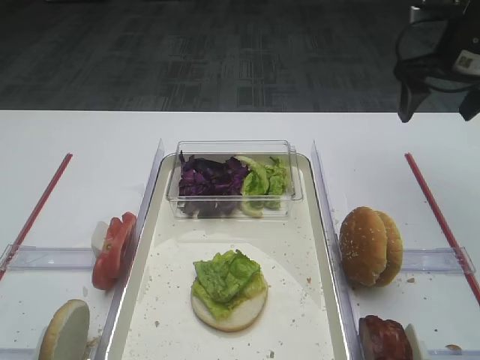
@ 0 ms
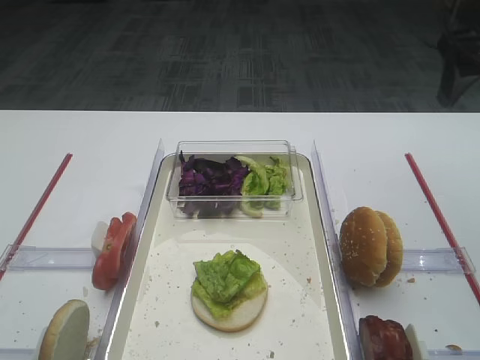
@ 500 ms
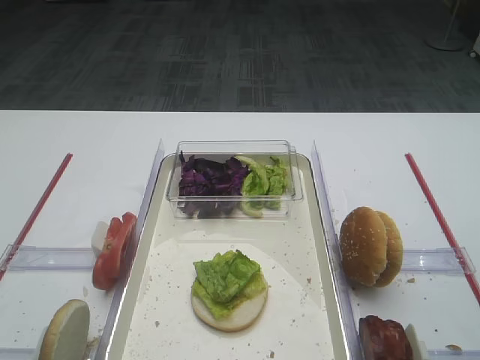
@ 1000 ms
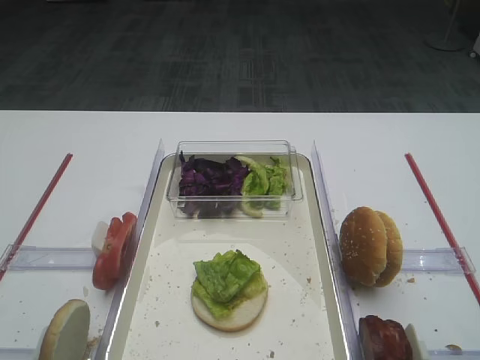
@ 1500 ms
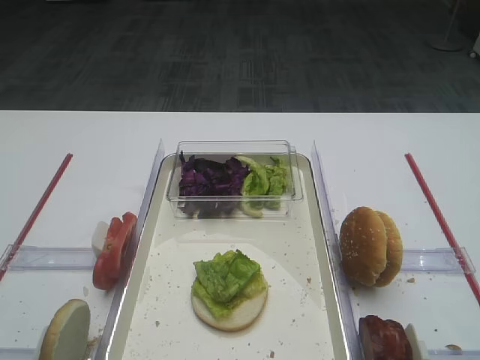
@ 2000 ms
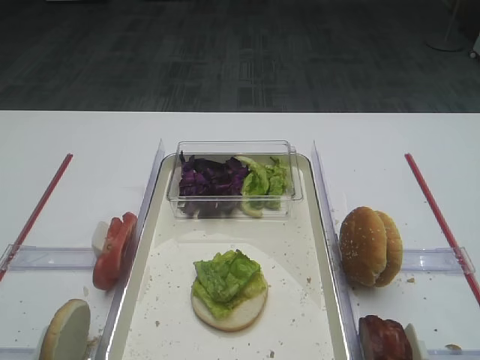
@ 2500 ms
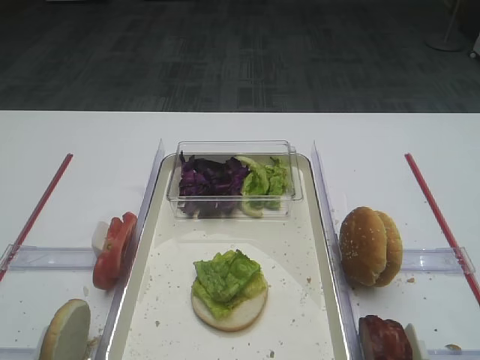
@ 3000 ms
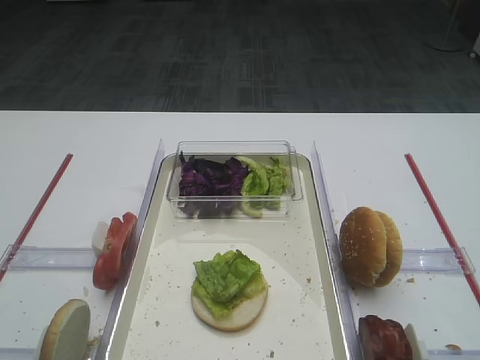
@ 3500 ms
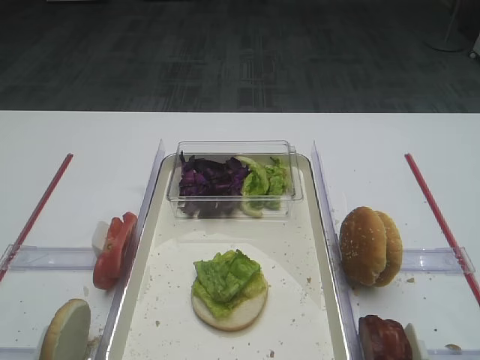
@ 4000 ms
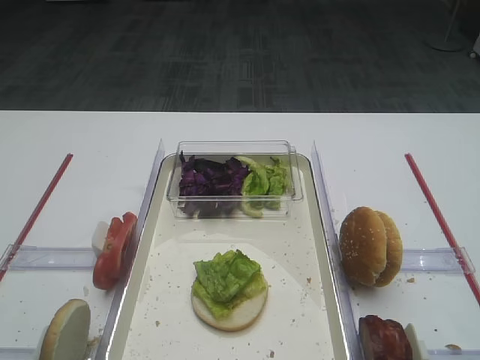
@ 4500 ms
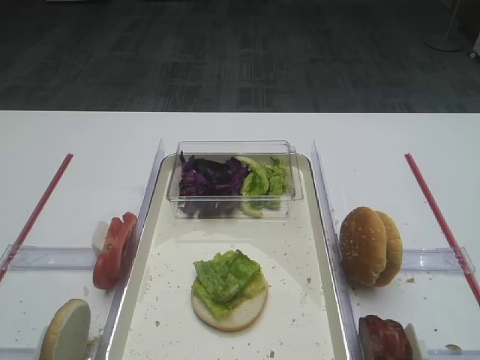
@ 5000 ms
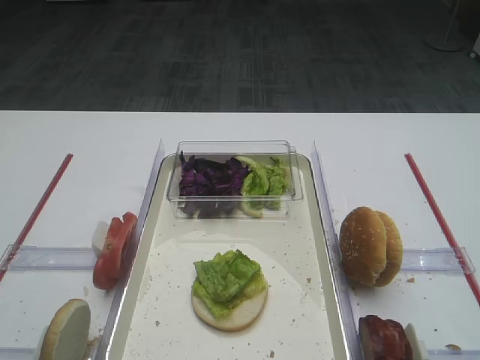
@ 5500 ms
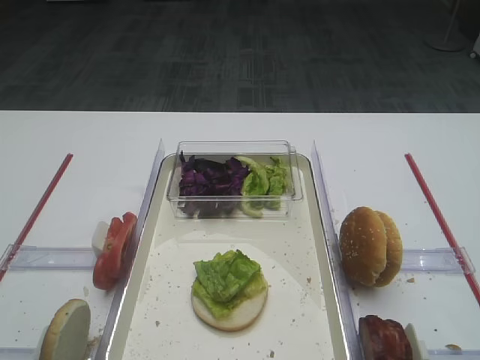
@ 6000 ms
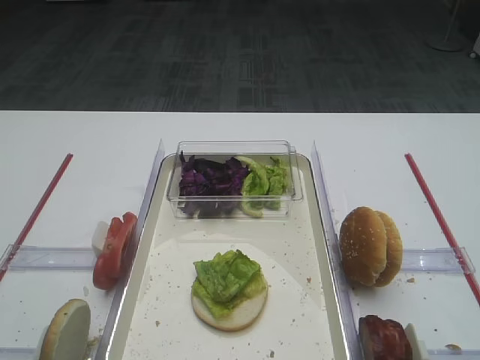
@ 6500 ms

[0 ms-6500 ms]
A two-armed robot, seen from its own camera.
0 ms to 2000 ms: The right gripper shifts approximately 40 cm backward.
4500 ms to 6500 ms: Neither gripper changes place.

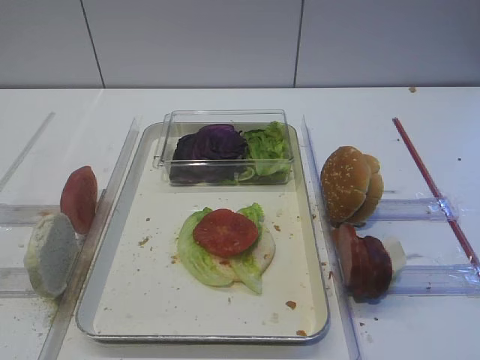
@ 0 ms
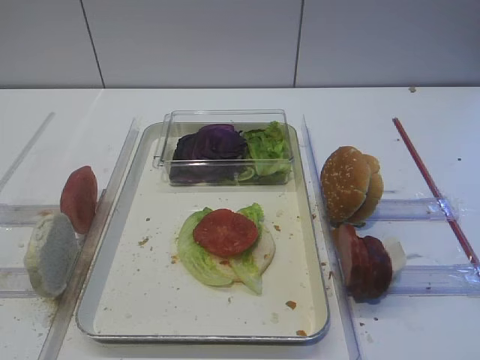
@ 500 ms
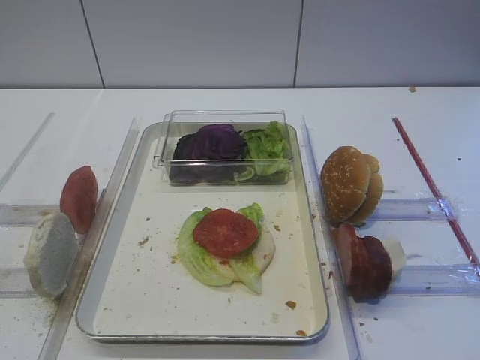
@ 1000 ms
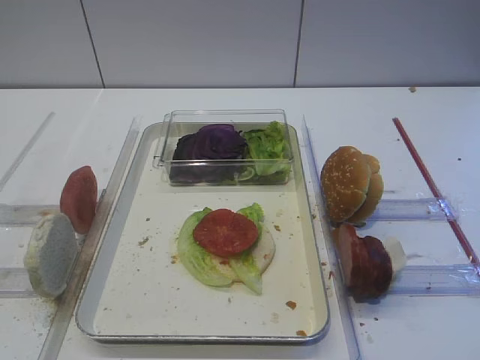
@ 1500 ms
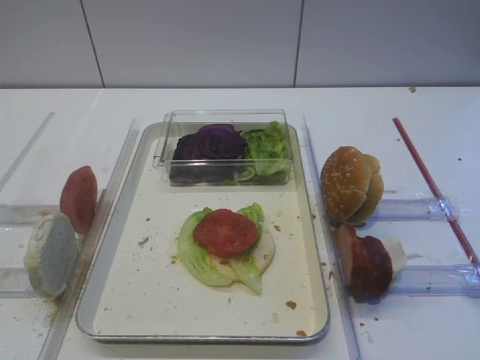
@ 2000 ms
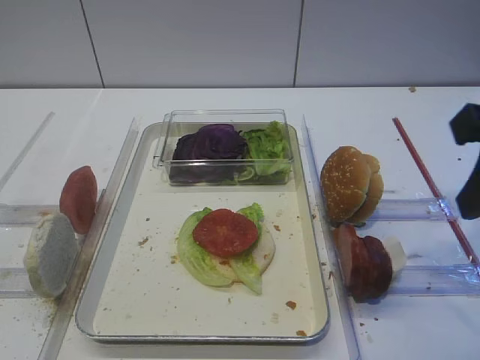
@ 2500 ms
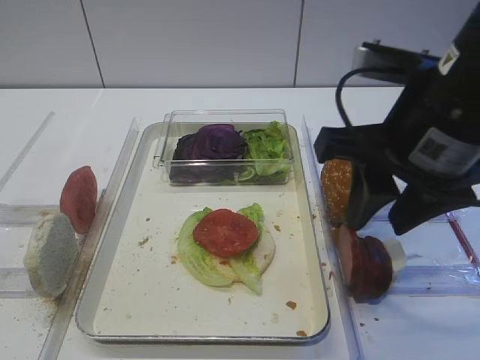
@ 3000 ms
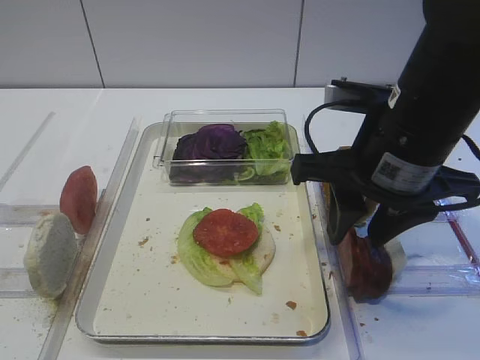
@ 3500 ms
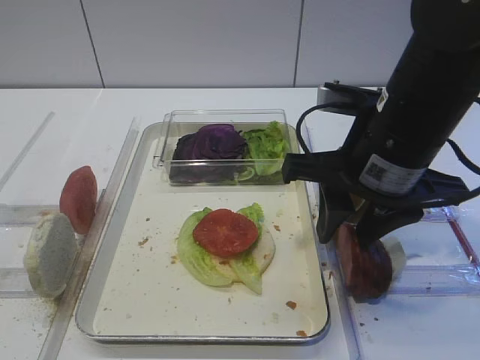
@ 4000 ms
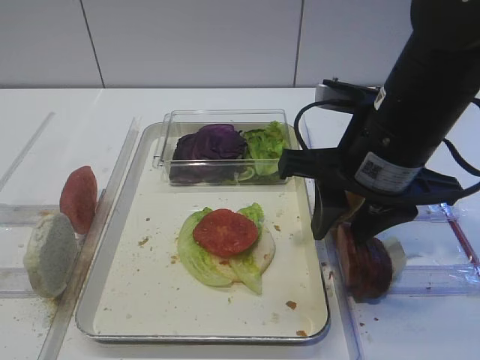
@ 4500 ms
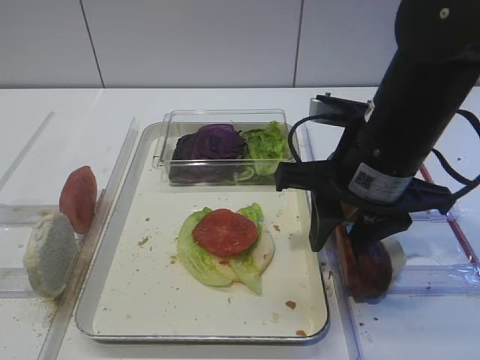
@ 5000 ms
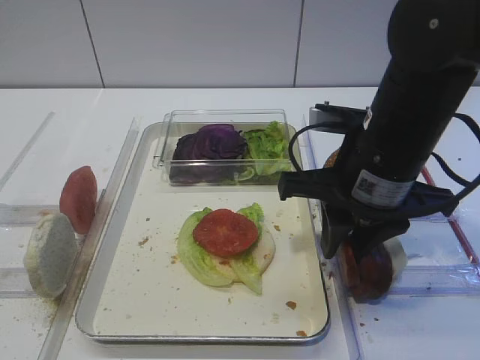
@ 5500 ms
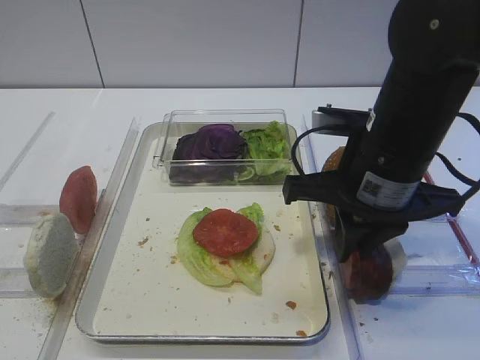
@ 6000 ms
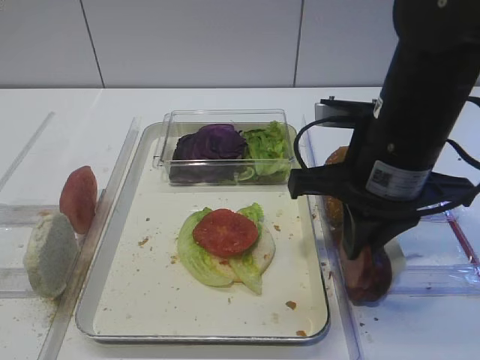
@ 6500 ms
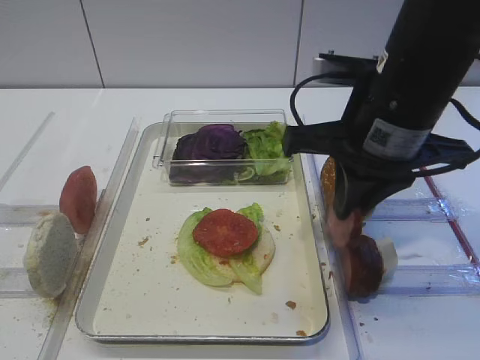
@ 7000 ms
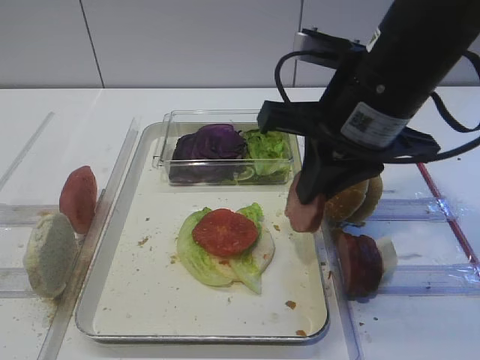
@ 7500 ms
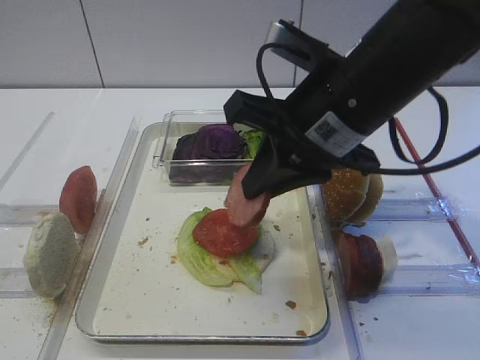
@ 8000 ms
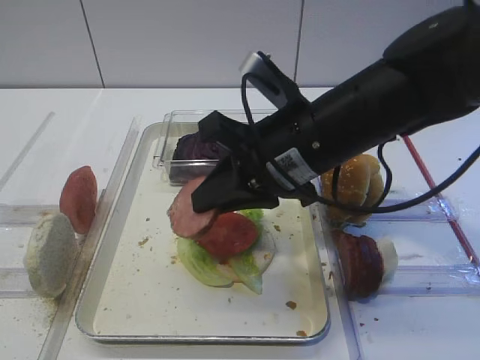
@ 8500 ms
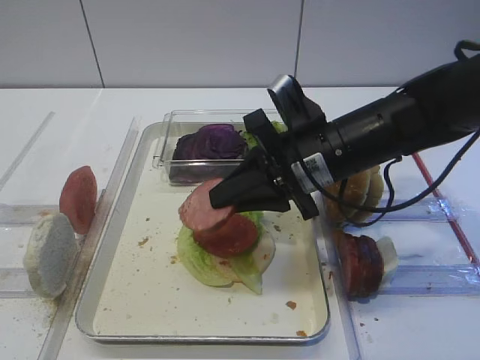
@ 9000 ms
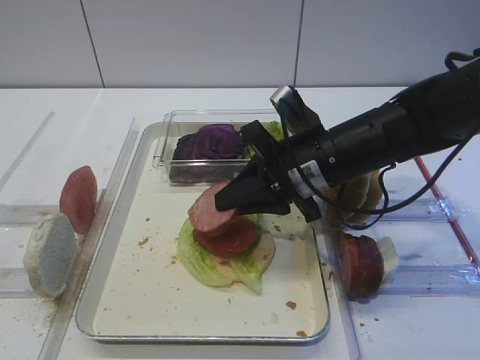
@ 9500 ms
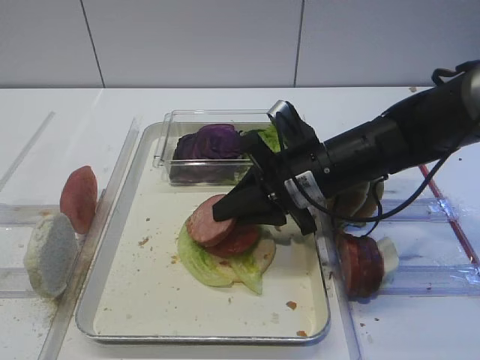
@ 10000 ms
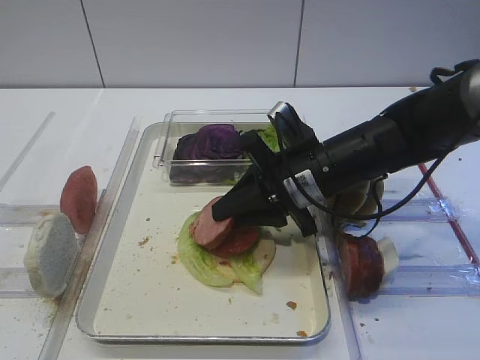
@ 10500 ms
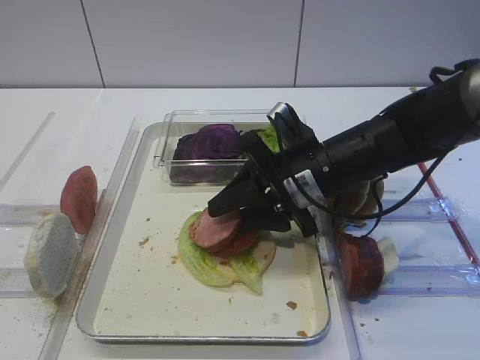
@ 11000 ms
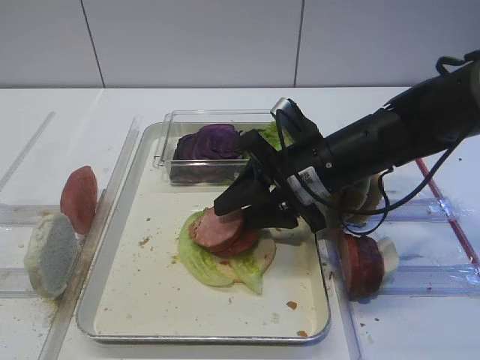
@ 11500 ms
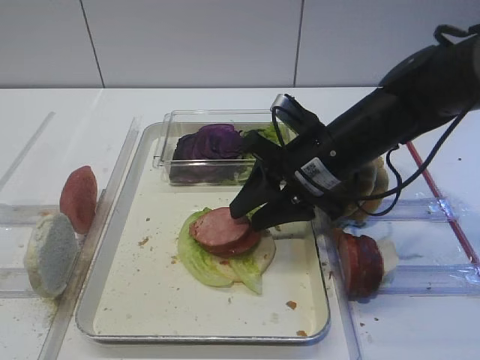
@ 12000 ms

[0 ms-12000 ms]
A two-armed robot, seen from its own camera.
Step, 0 ms to 6500 ms: Pick up the cutlet with the right gripper.
2000 ms to 4000 ms: The right gripper is displaced to the left, forward and downward by some 20 cm.
4000 ms to 6000 ms: The right gripper closes its fingers.
6000 ms to 8000 ms: The right gripper changes place by some 5 cm.
8000 ms to 10000 ms: The right gripper heads downward and forward, covering approximately 15 cm.
10000 ms to 12000 ms: The right gripper opens.

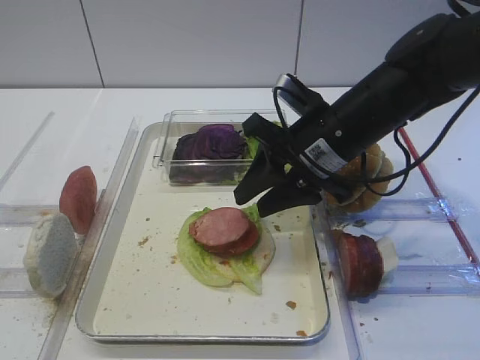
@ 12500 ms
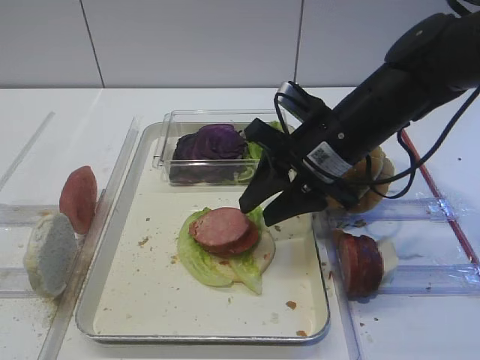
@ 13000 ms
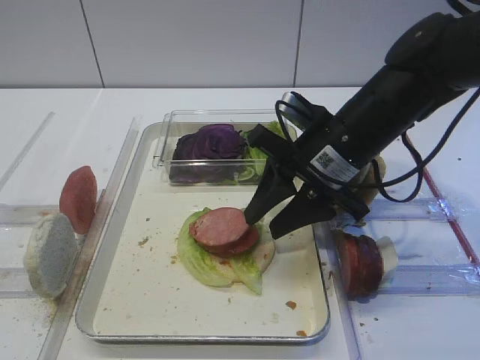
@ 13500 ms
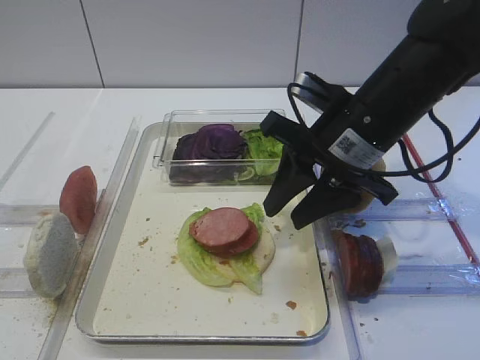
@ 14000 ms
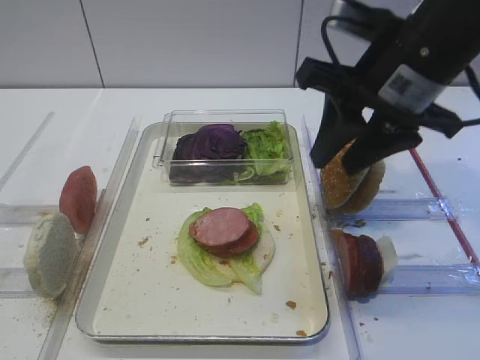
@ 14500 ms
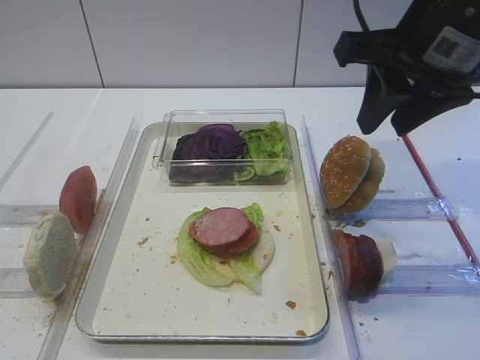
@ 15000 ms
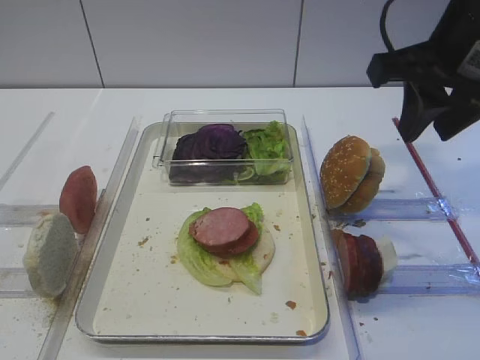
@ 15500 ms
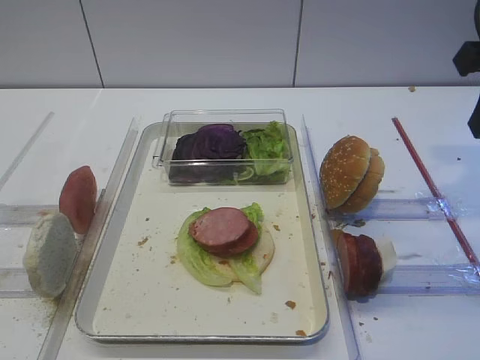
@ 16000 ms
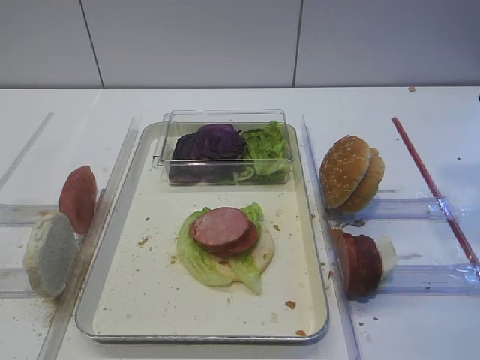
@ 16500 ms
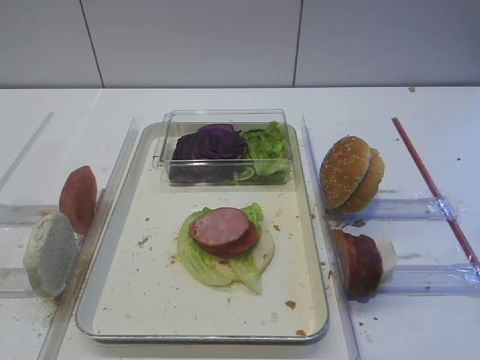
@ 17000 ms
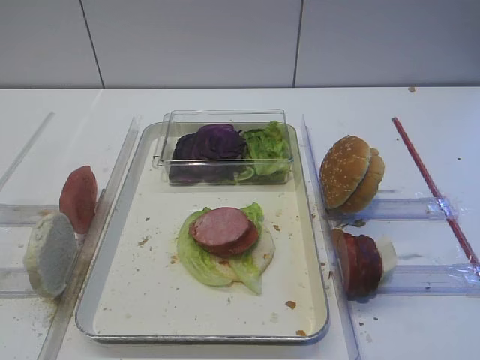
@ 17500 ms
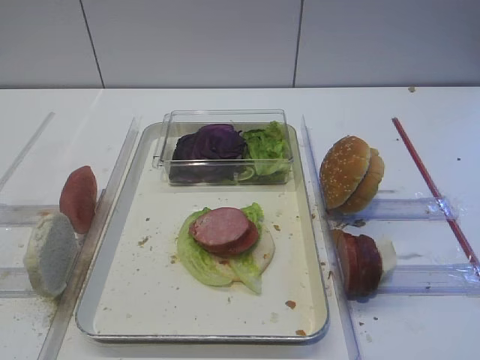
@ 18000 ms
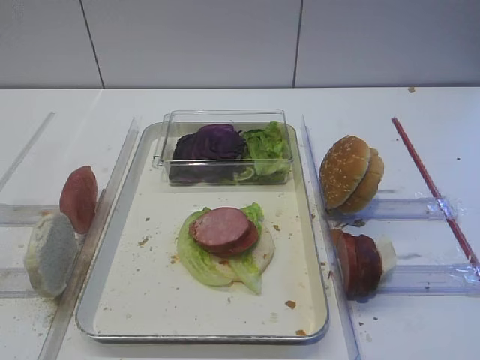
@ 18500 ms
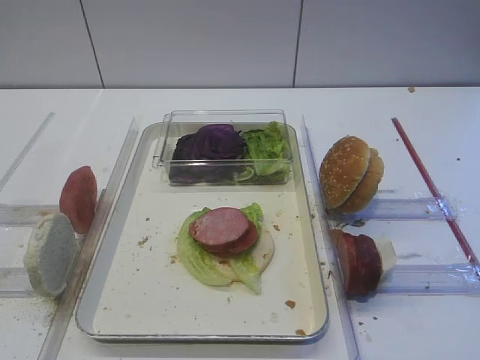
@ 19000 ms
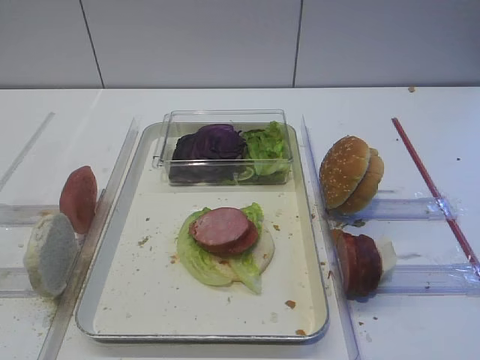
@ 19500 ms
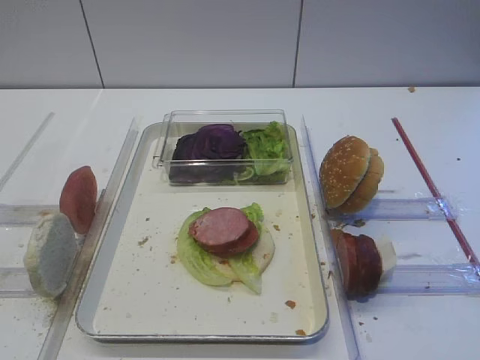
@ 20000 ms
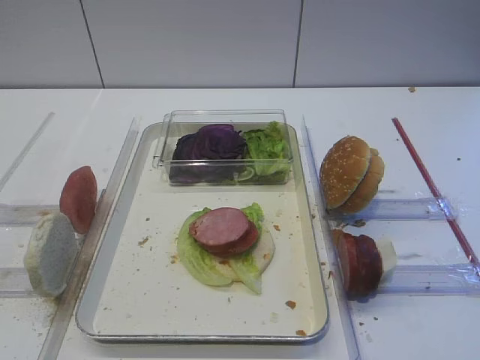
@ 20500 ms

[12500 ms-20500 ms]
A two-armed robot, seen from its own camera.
12500 ms to 14500 ms: The right gripper travels upward by about 10 cm.
14500 ms to 16500 ms: The right gripper goes approximately 10 cm to the right.
18500 ms to 20500 ms: Neither gripper changes place.
